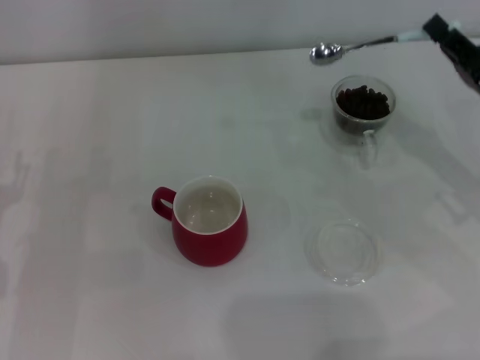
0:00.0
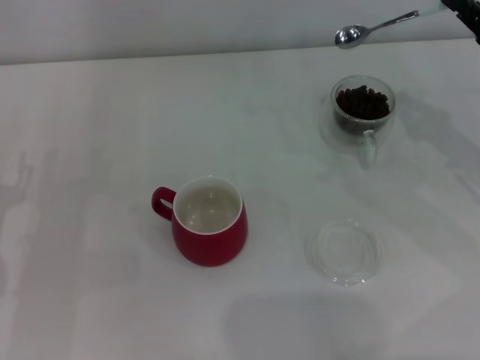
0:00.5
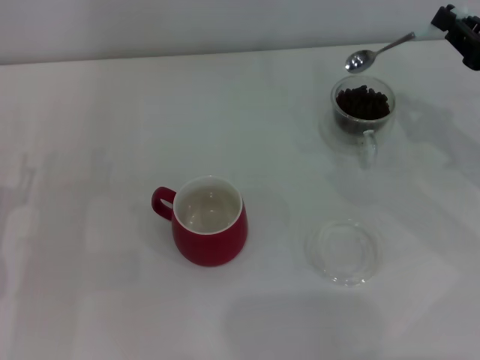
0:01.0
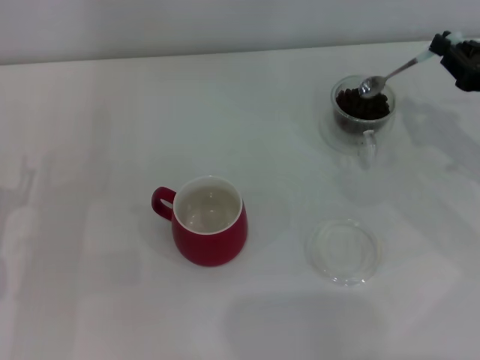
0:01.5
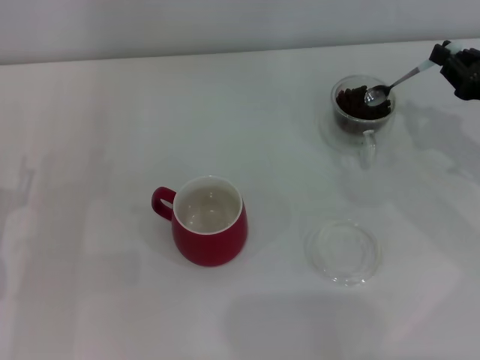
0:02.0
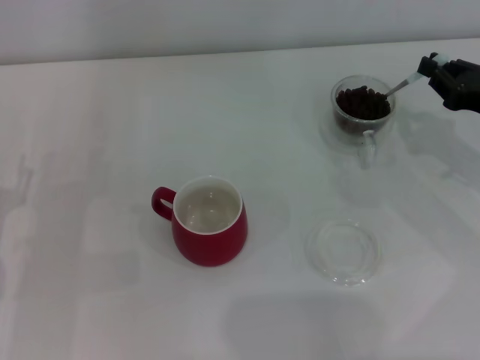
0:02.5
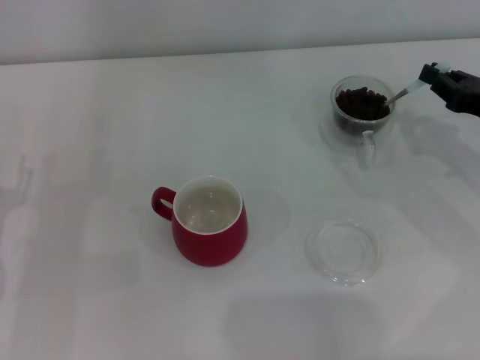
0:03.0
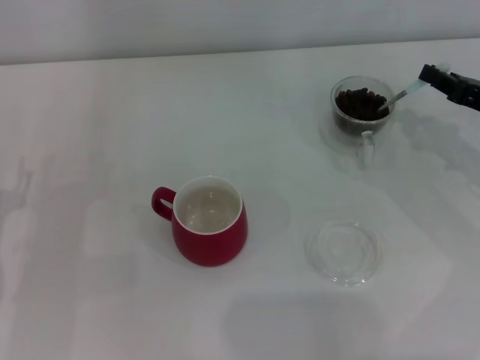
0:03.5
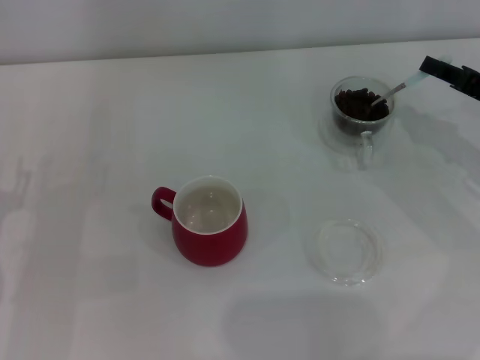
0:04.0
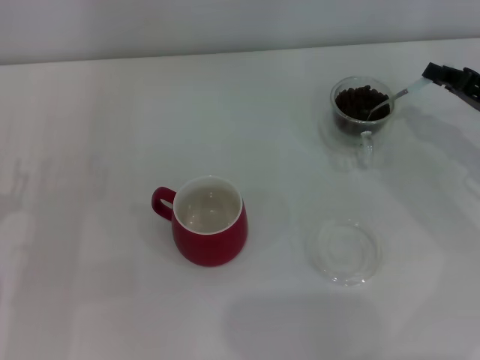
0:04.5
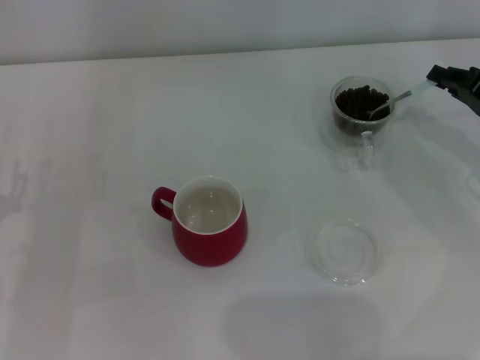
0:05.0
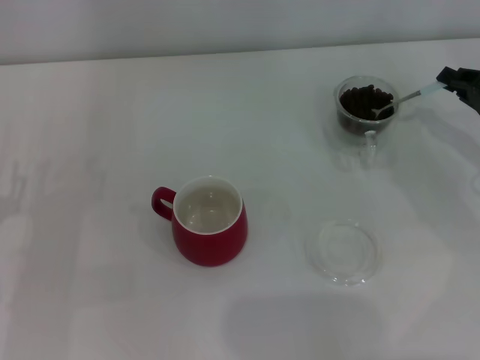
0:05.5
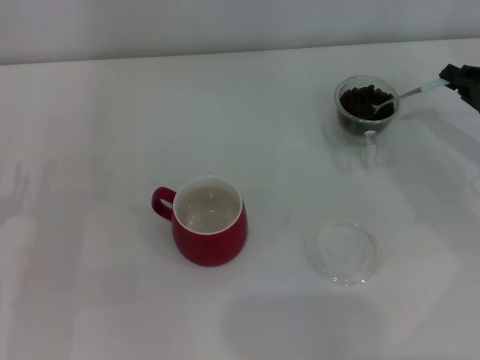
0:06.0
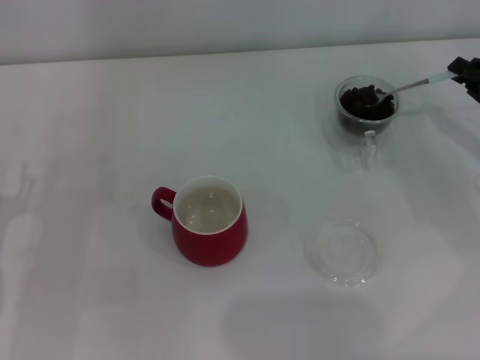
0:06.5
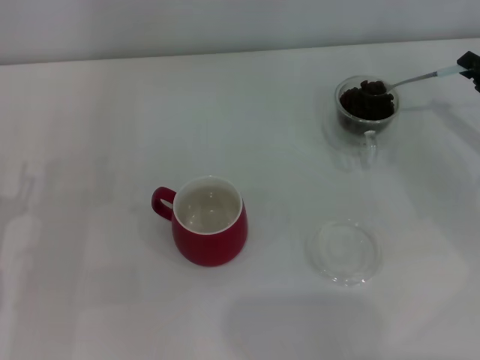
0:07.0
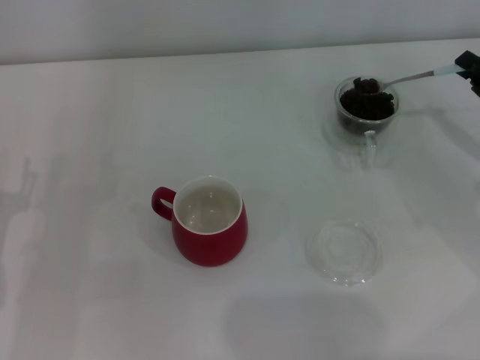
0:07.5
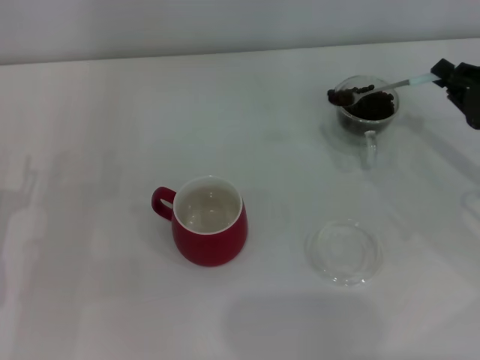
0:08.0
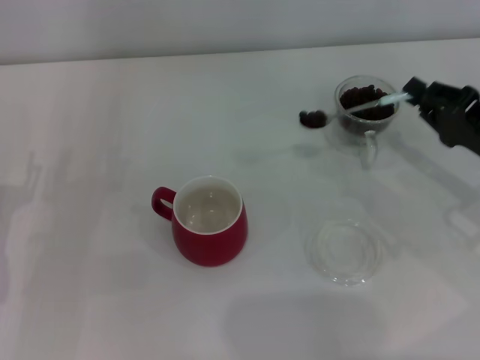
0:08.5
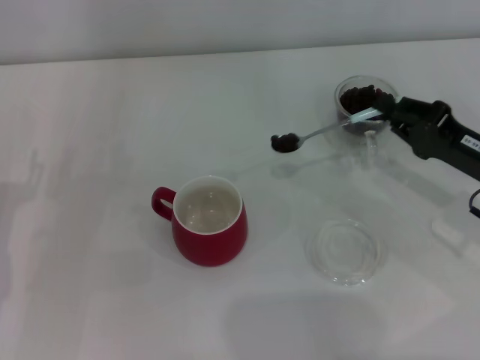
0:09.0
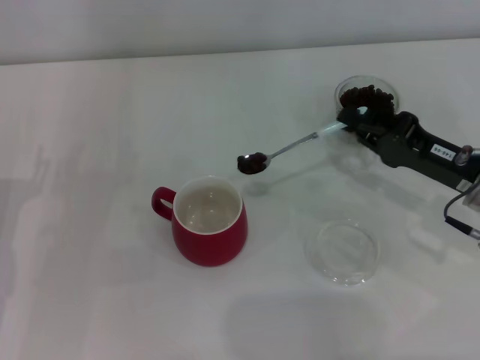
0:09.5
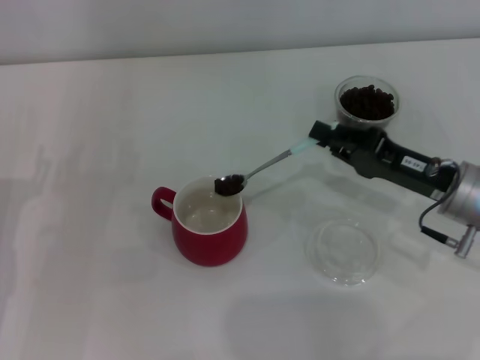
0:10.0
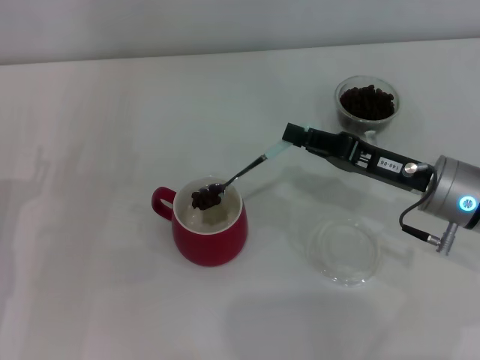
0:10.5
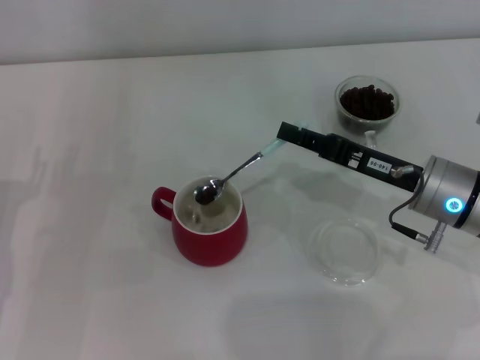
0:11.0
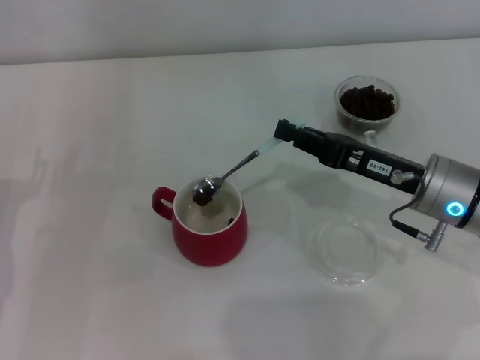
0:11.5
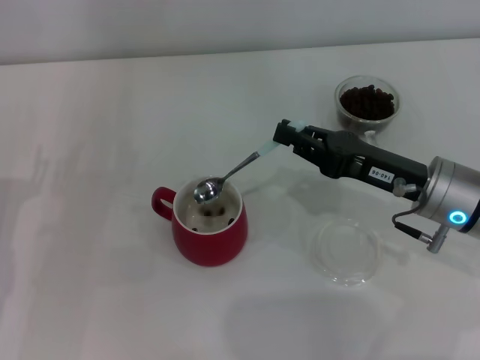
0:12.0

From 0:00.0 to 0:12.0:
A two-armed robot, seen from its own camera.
Task of the whole recording: Use a blue spoon to take out the coffee beans from the glass and pour them into the red cup.
From 0:06.0 to 0:08.0: The grippers make only small movements.
From 0:08.0 to 0:10.0: The right gripper heads to the left, covering approximately 10 cm.

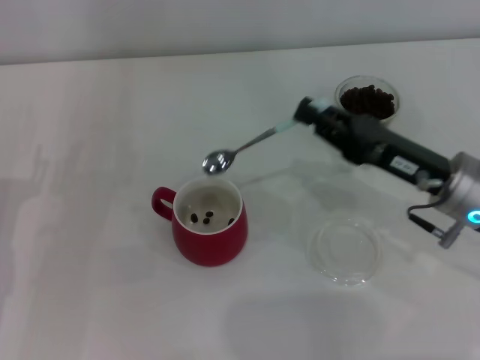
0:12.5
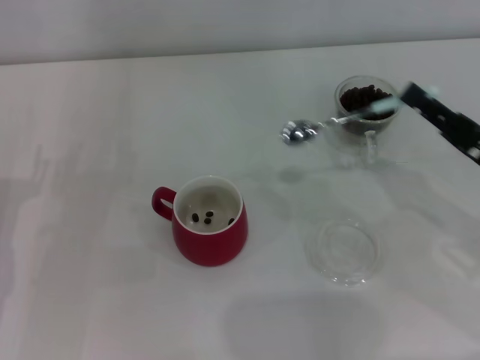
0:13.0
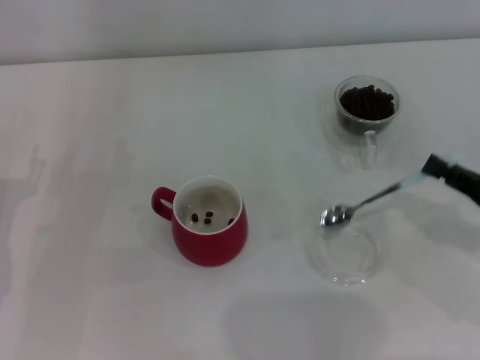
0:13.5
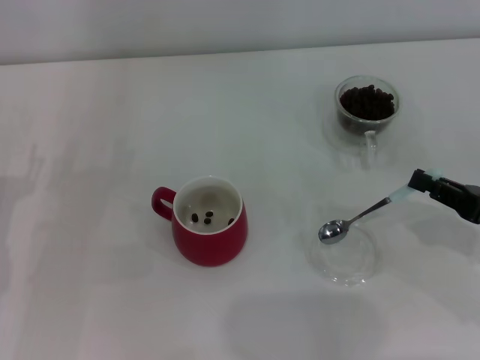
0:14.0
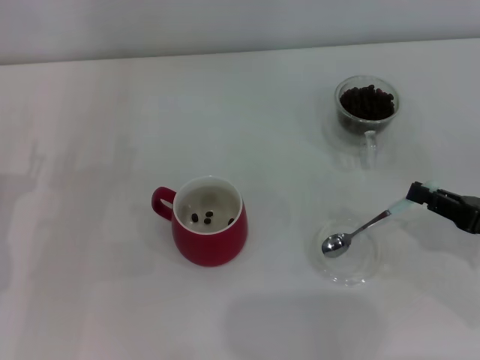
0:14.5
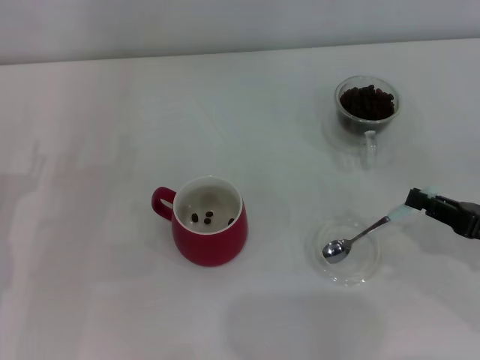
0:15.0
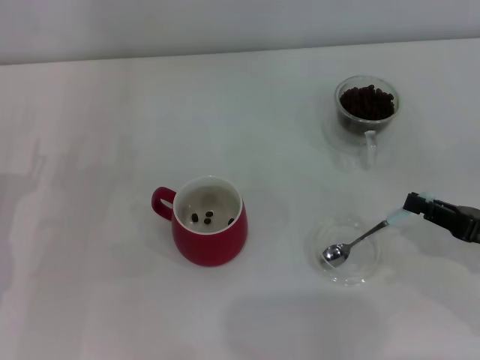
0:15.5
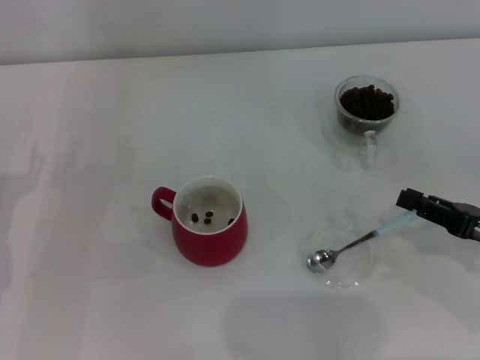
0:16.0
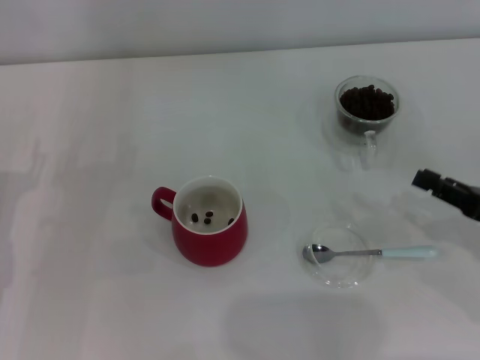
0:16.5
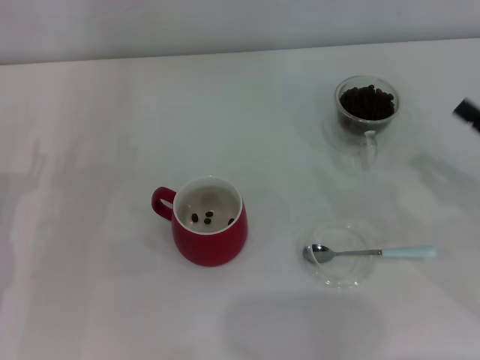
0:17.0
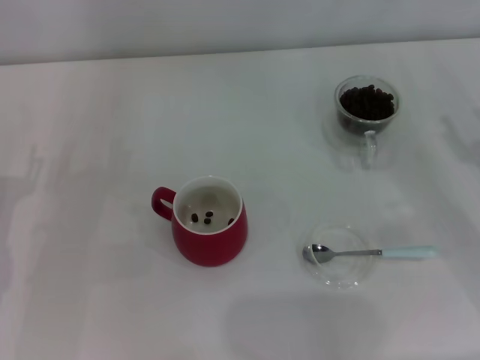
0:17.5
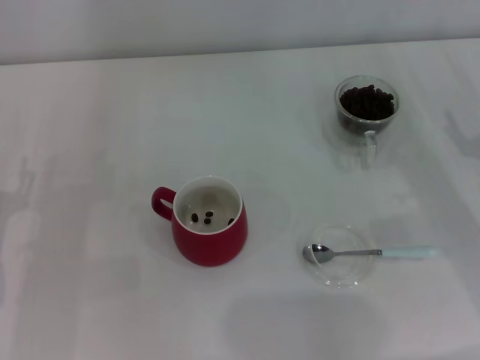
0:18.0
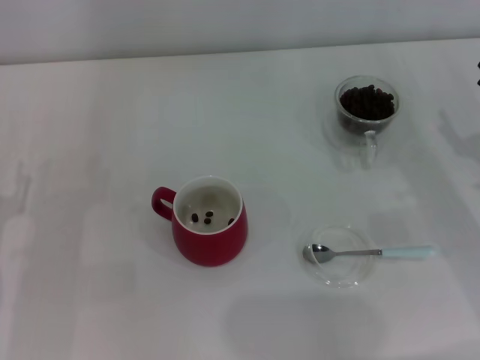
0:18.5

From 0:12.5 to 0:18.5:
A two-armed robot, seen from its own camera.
Task of the whole recording: Use a blue spoon to take out the coffee beans from the glass and pour them into the red cup.
Step, from 0:13.0 to 0:16.0: Place the spoon back in its original place with the right gripper.
From 0:12.5 to 0:14.5: The right gripper is displaced to the right and backward by about 15 cm.
From 0:14.5 to 0:16.5: Both grippers stay about where they are.
From 0:16.5 to 0:18.5: The right gripper travels forward by approximately 5 cm, and opens up.
